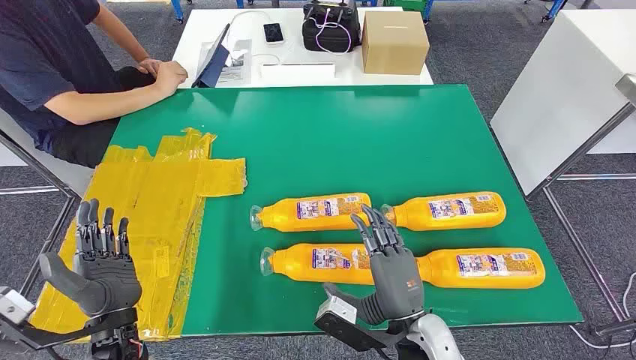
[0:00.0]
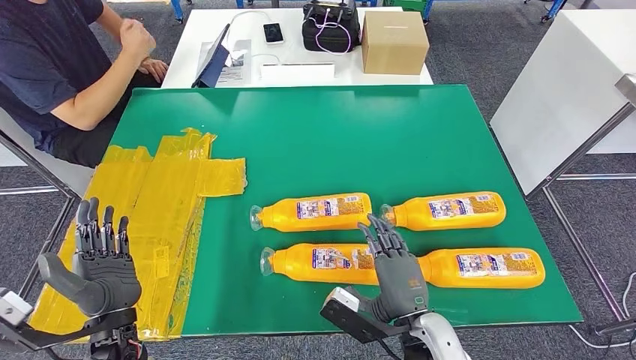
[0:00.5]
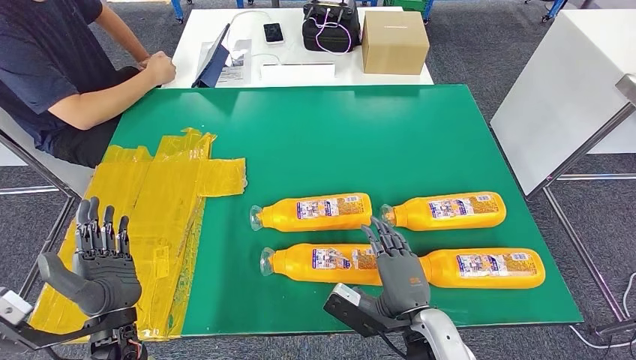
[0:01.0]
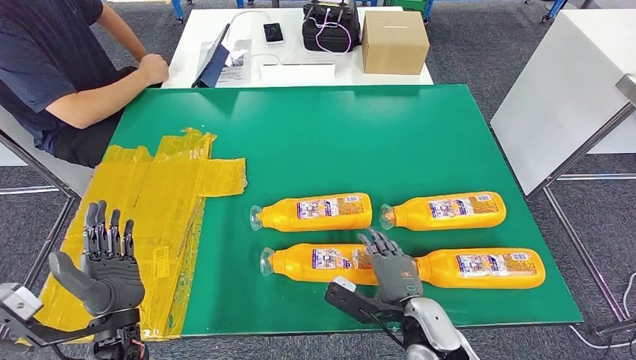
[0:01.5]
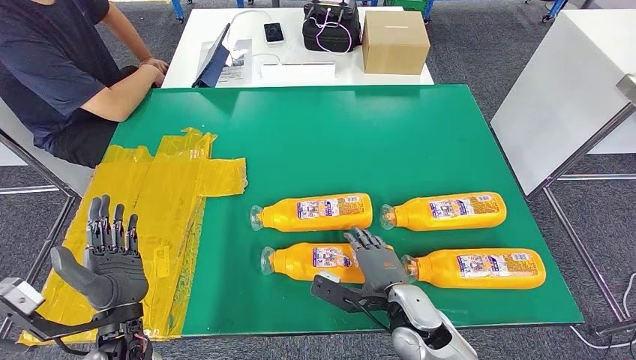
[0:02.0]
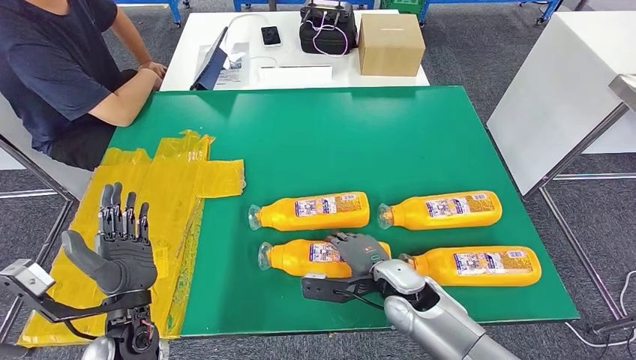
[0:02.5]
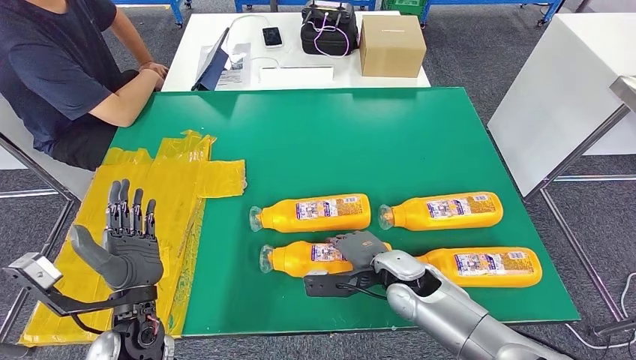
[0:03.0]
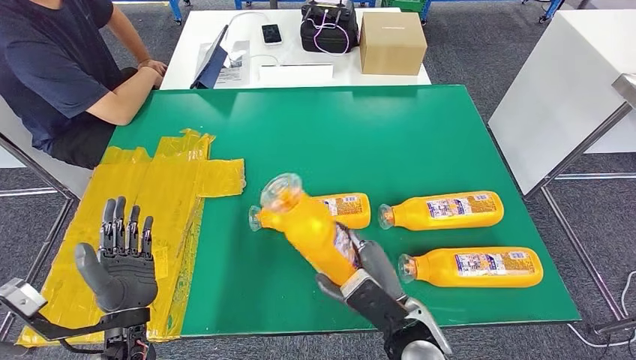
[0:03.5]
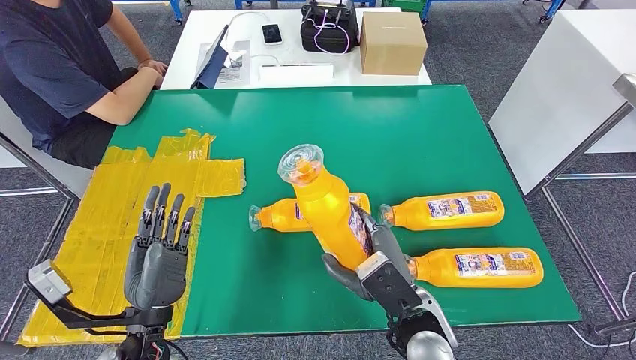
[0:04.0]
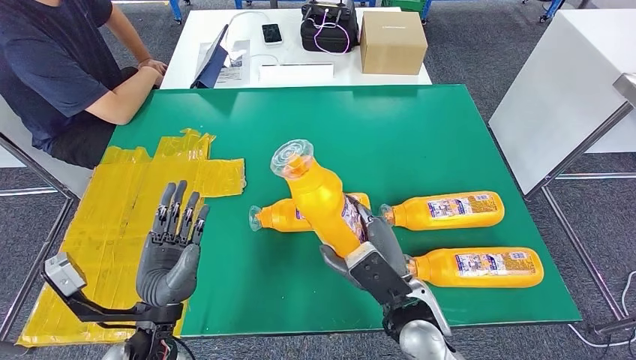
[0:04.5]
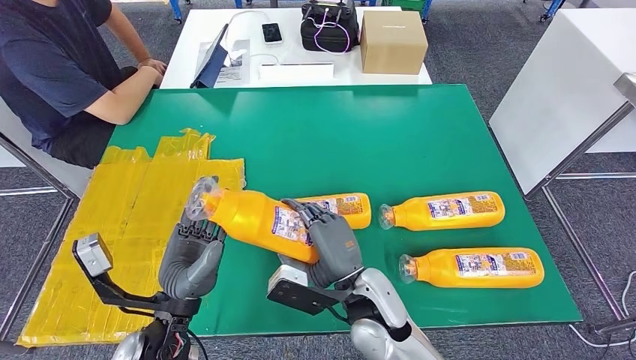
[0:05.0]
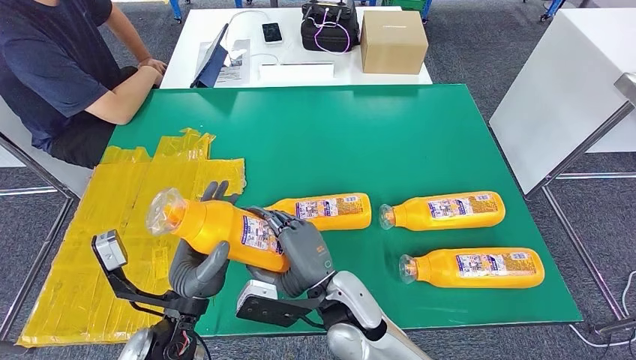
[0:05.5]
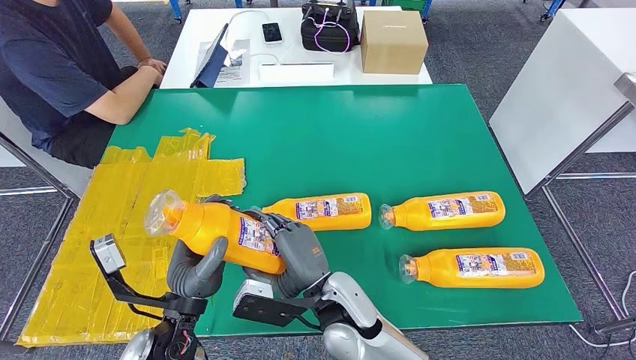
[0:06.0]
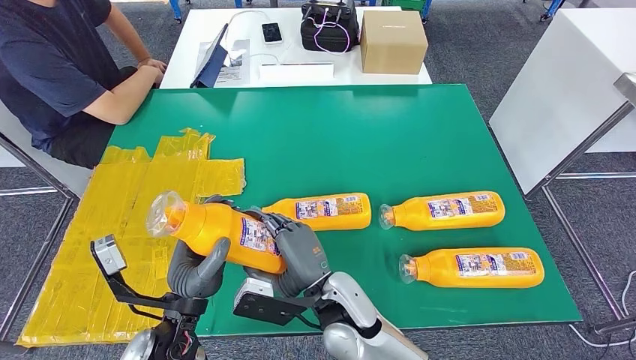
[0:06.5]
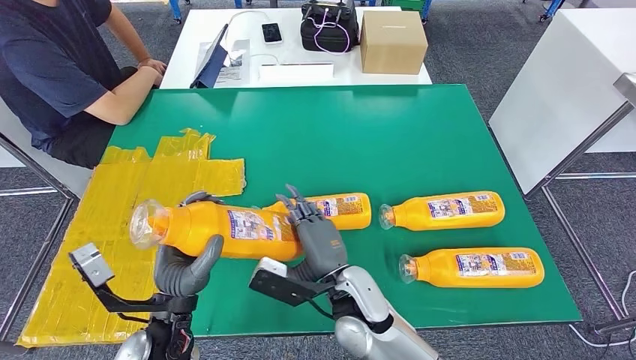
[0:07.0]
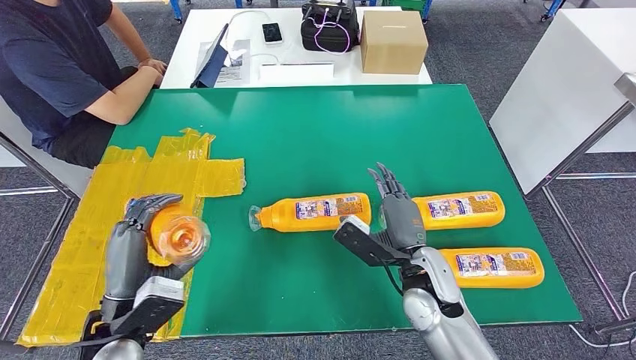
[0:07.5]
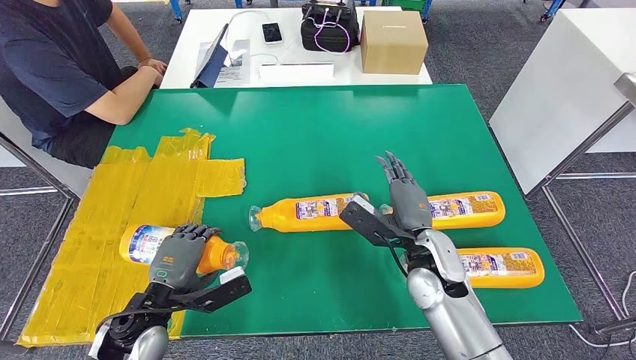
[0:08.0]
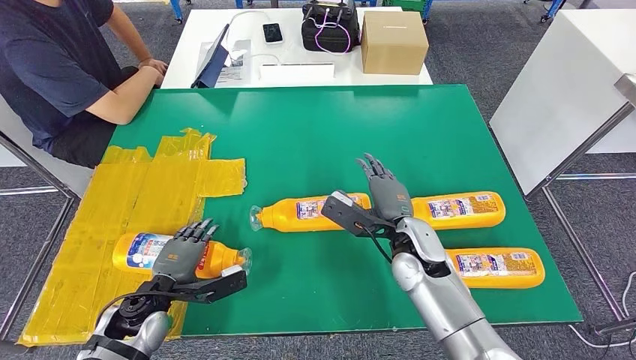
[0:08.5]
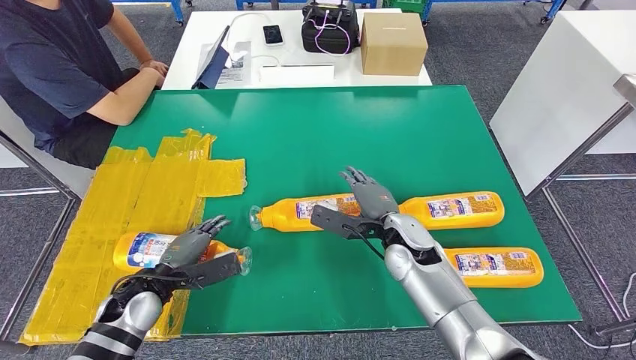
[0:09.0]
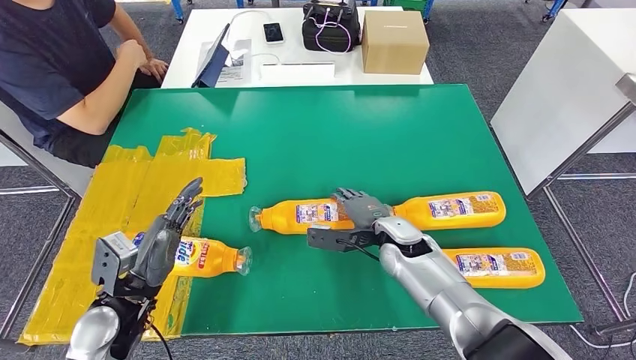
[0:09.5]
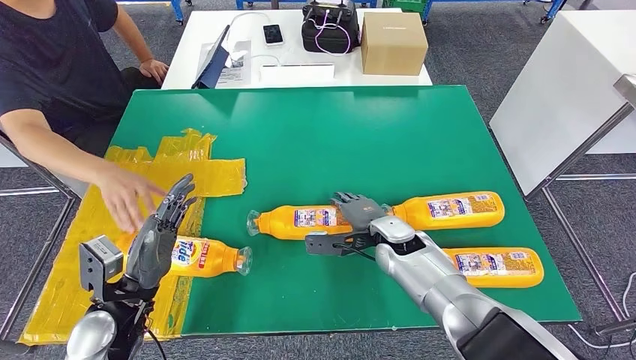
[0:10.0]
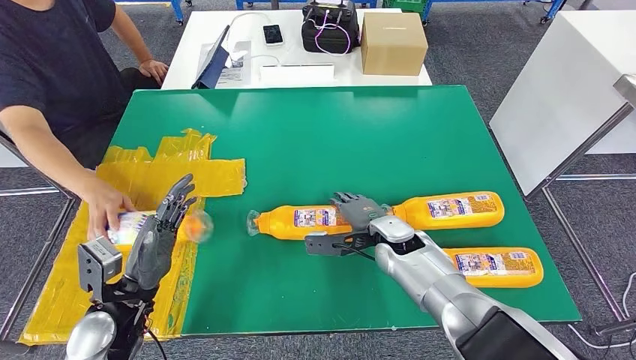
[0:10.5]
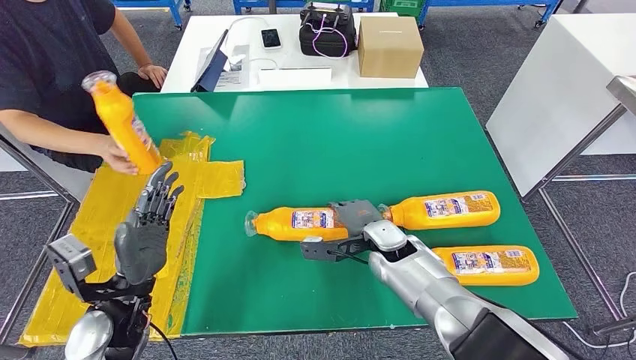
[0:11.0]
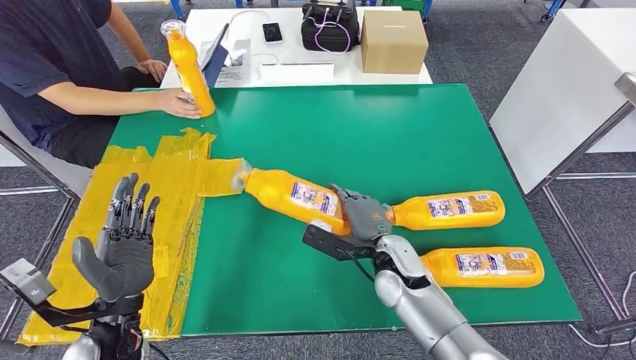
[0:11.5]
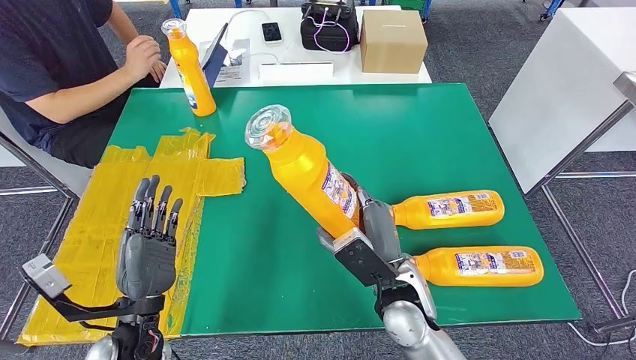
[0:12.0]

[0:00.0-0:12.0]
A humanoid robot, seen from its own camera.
Step, 0:00.0 to 0:03.5: Take the bottle from the table.
Step, 0:04.5 to 0:09.5: Flip the bottle to face forward.
0:04.0 to 0:06.0: The right hand goes some 10 cm to the left.
0:06.0 to 0:08.0: The right hand is displaced to the right and forward by about 15 cm. The left hand goes some 10 cm to the left.

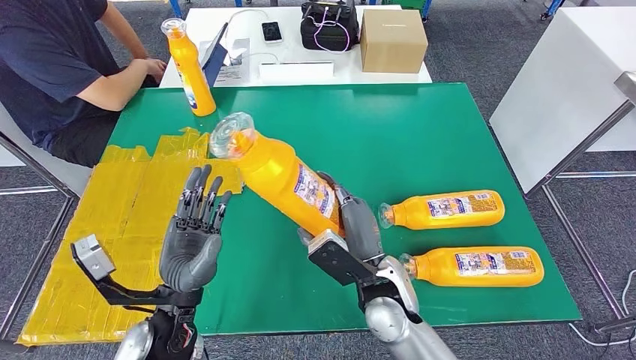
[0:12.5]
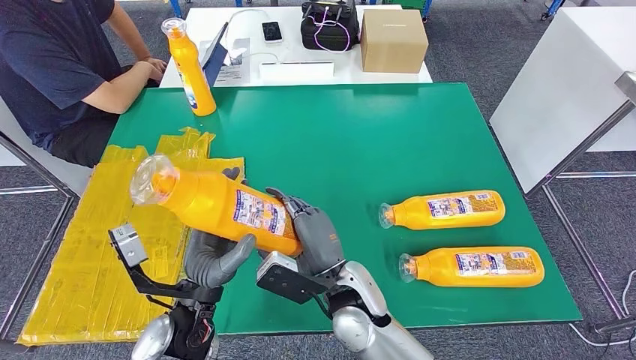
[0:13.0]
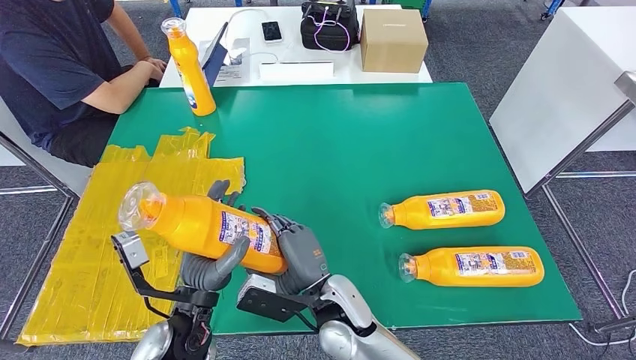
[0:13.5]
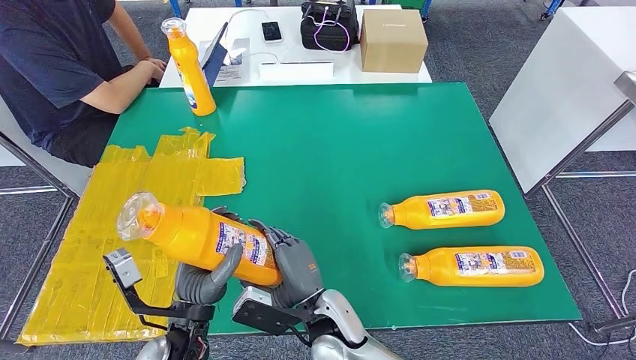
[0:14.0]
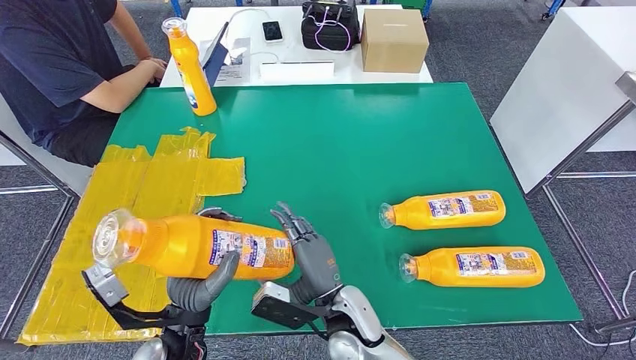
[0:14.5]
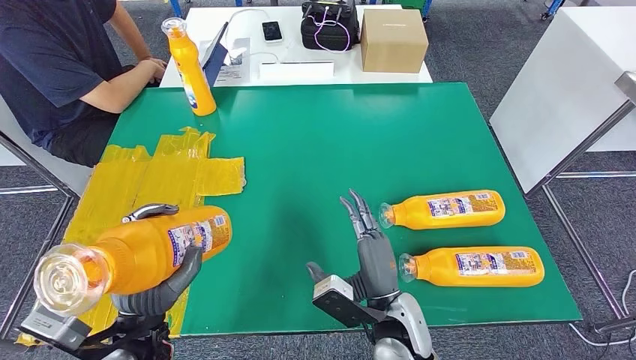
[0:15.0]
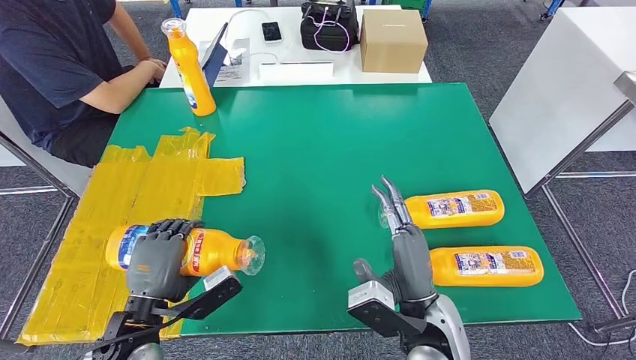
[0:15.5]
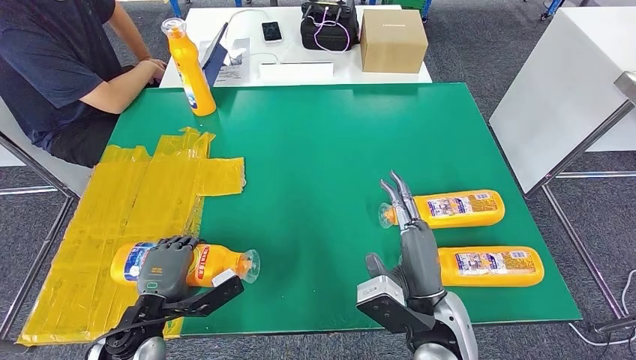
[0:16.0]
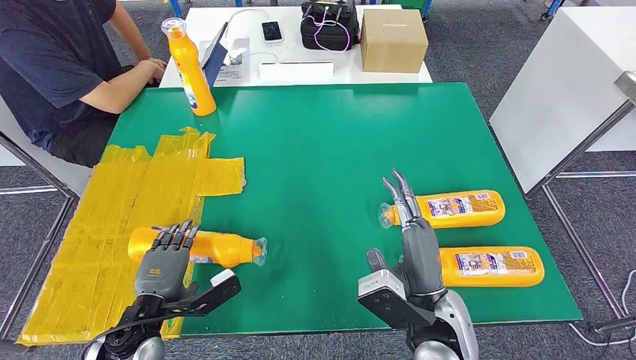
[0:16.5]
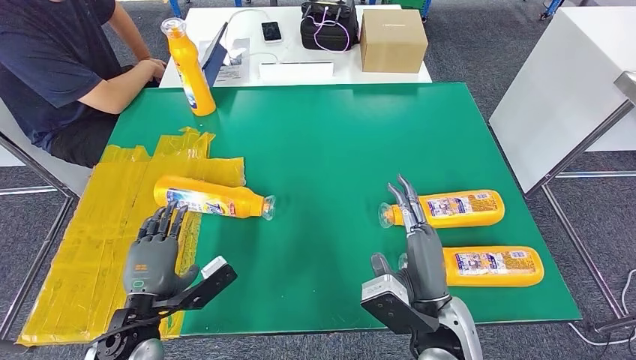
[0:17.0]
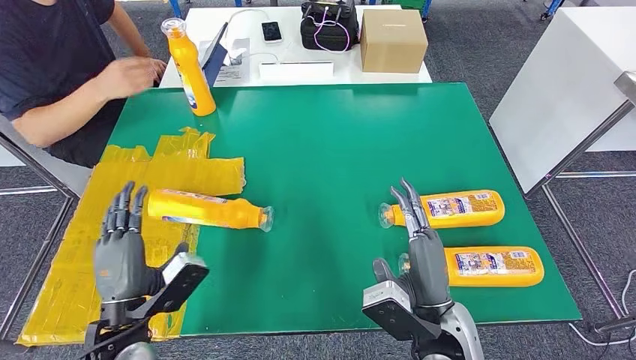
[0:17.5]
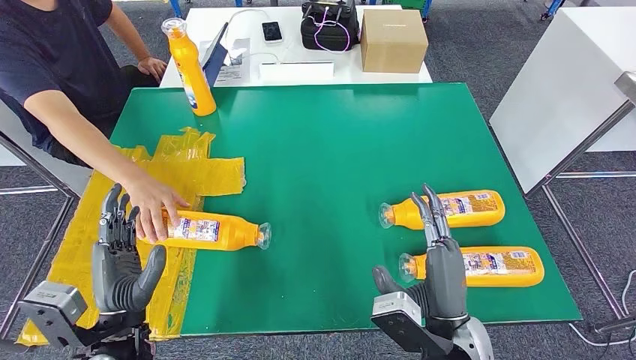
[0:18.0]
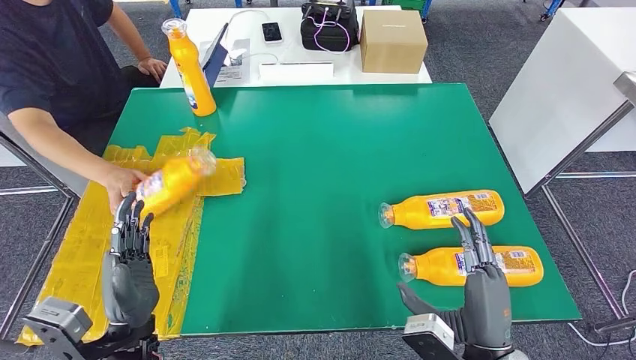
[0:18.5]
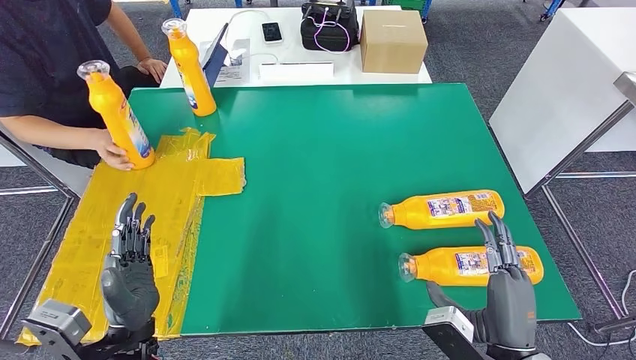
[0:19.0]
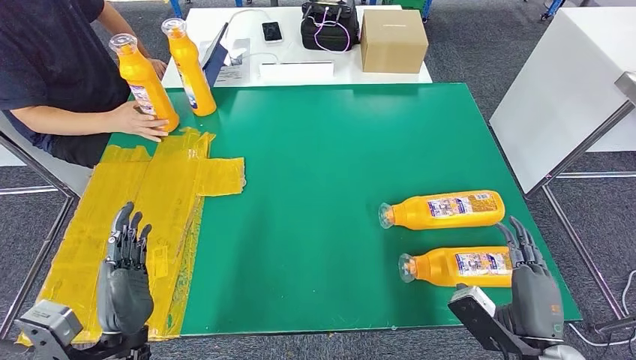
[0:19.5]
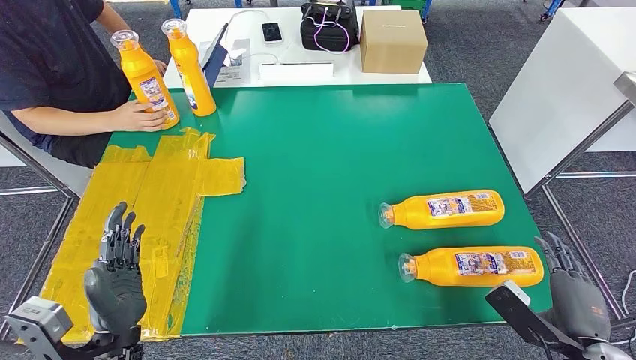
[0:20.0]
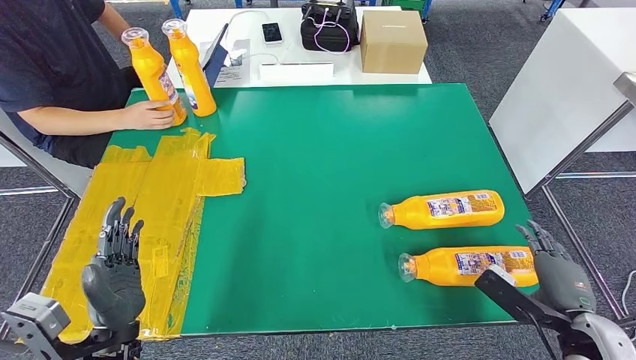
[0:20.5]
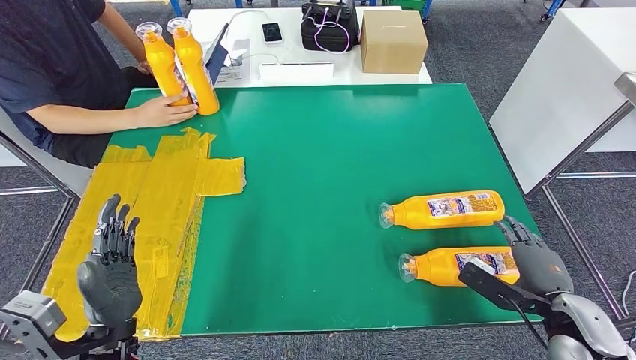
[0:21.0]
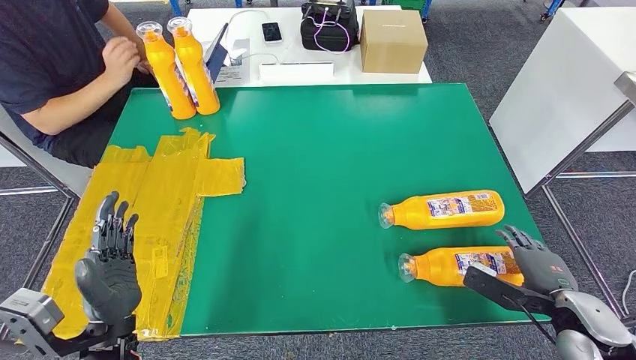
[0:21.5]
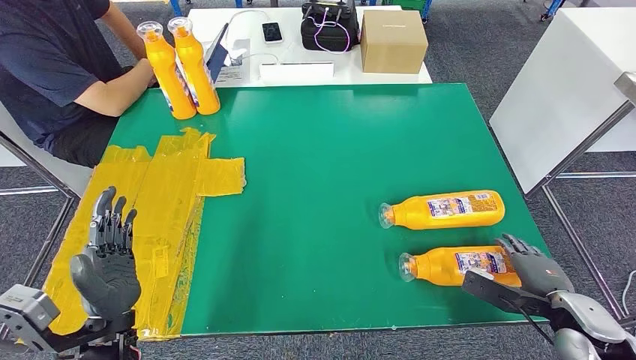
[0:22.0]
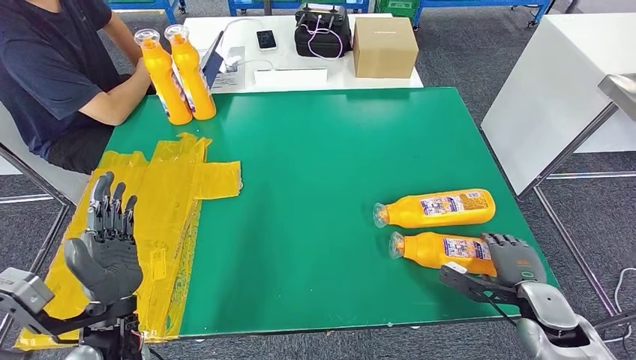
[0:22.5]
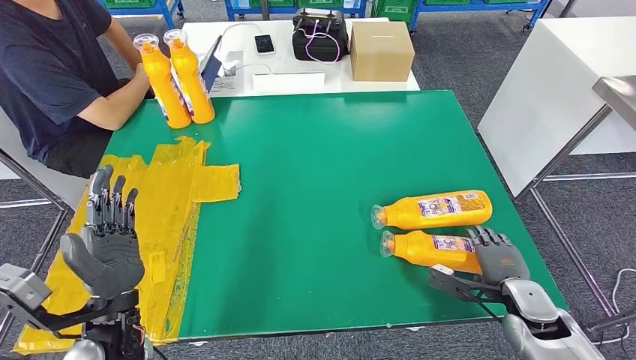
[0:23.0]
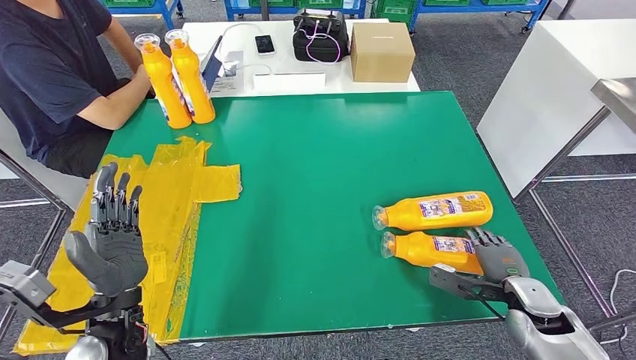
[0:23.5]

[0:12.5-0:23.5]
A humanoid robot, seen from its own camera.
Step, 0:13.0 to 0:16.5: Flip the bottle to face forward.
0:12.5 to 0:14.5: The right hand travels to the left by roughly 5 cm.
0:14.5 to 0:16.0: The right hand is displaced to the right and upward by about 15 cm, while the left hand goes roughly 10 cm to the left and downward.
0:16.0 to 0:18.0: The left hand travels upward by roughly 5 cm.
0:18.0 to 0:20.0: The right hand travels to the right by approximately 20 cm.
0:20.0 to 0:21.5: The right hand heads forward, covering some 5 cm.
